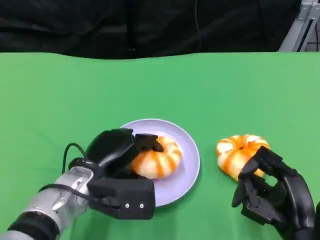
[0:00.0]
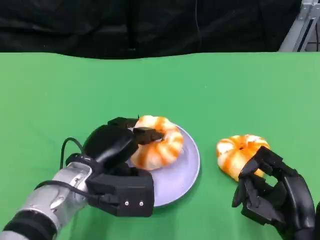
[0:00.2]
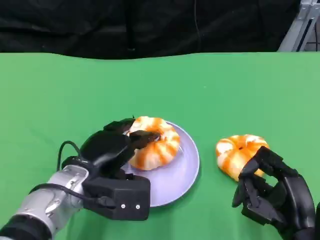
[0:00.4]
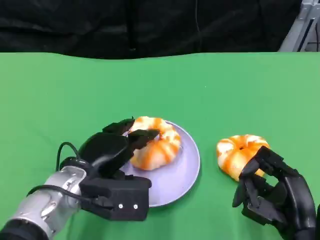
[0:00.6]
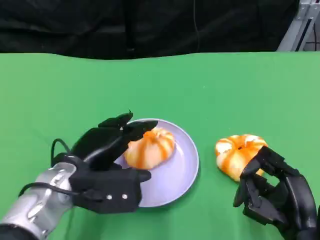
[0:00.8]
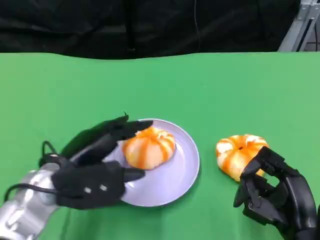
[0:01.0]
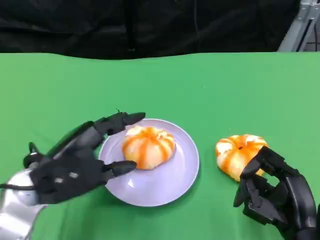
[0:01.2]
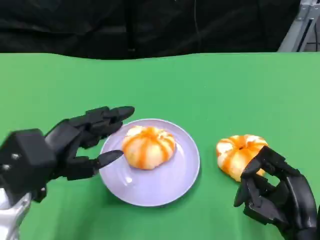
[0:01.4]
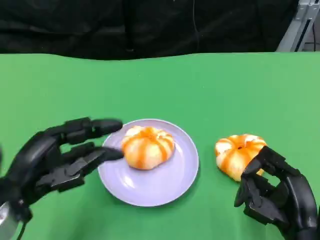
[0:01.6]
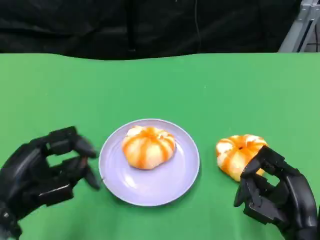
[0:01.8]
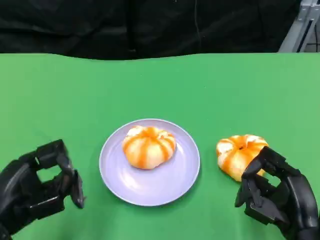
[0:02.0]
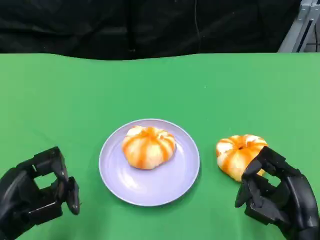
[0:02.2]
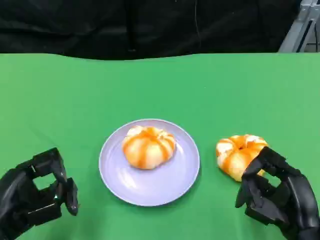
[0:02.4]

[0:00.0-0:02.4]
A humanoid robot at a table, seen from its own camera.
Task of the whole recording: Grasp the bread from the table and place it into the plate.
0:00.0 to 0:01.2: The left hand moves to the left and upward, about 10 cm.
0:01.2 to 0:02.4: The left hand heads backward and to the left, covering roughly 10 cm.

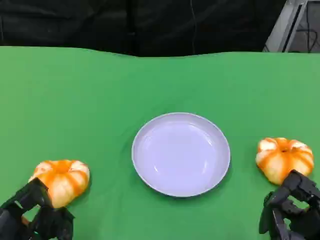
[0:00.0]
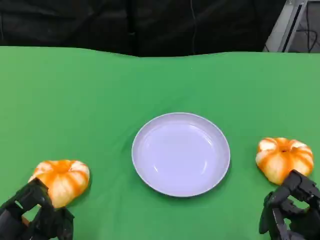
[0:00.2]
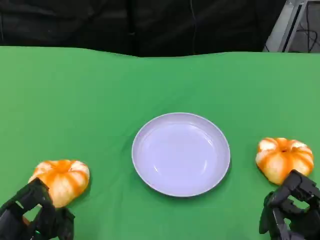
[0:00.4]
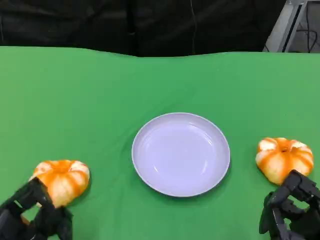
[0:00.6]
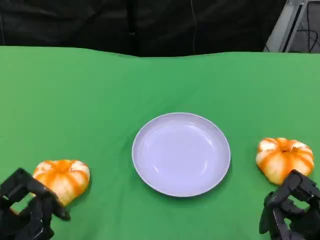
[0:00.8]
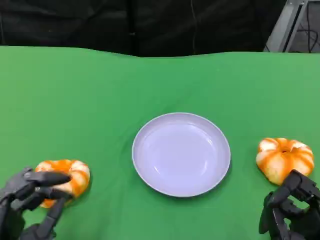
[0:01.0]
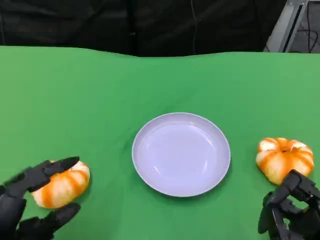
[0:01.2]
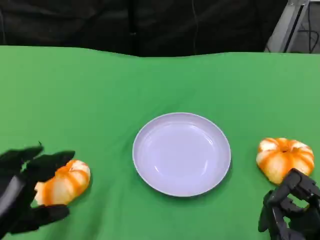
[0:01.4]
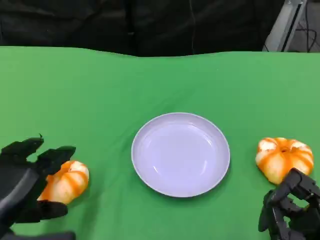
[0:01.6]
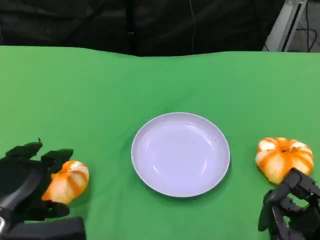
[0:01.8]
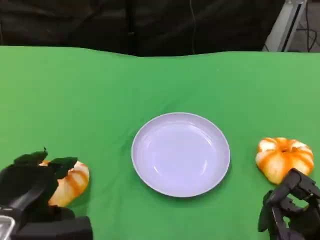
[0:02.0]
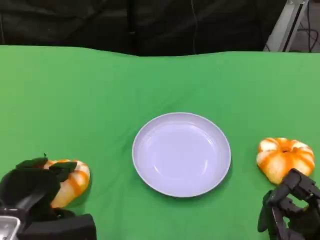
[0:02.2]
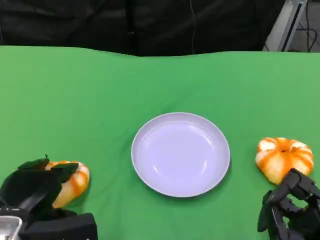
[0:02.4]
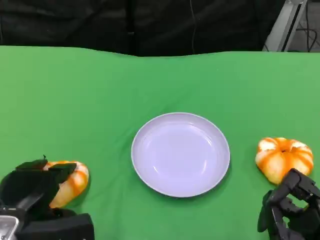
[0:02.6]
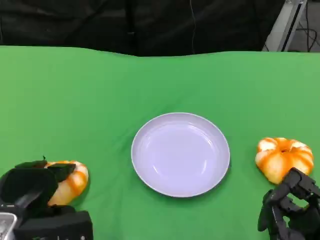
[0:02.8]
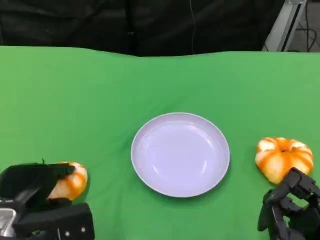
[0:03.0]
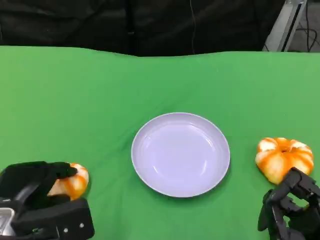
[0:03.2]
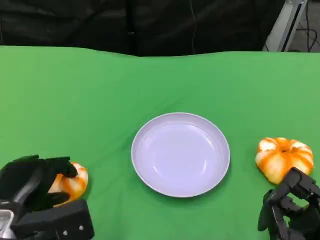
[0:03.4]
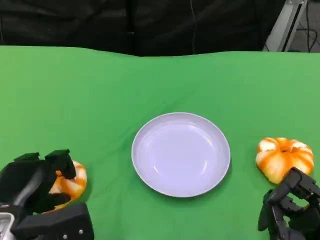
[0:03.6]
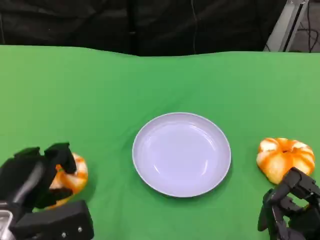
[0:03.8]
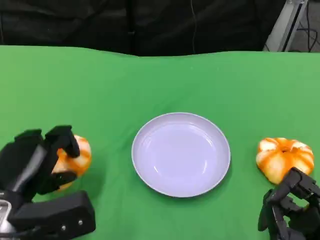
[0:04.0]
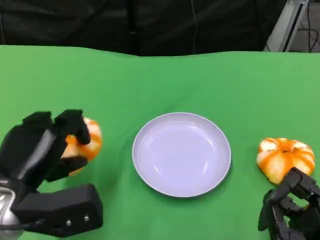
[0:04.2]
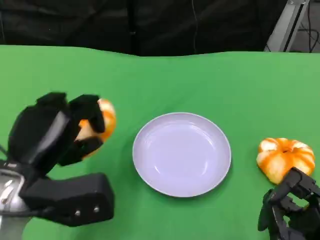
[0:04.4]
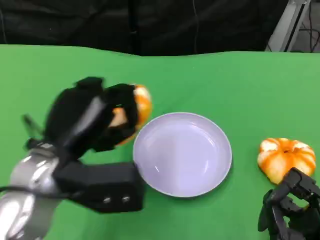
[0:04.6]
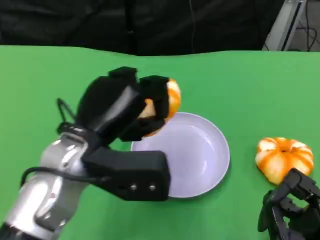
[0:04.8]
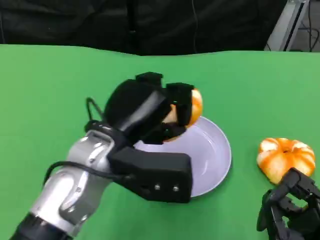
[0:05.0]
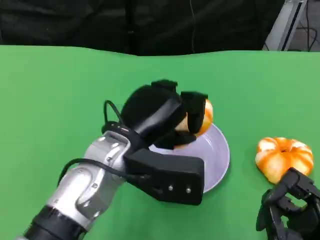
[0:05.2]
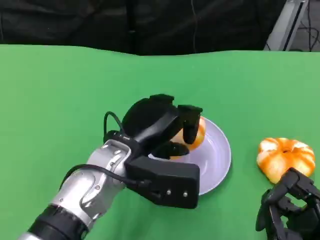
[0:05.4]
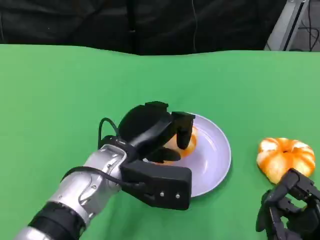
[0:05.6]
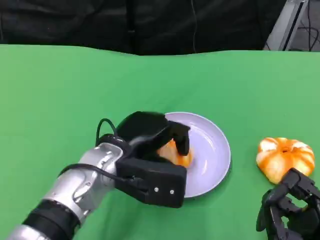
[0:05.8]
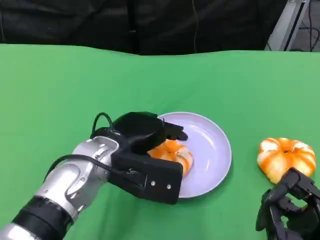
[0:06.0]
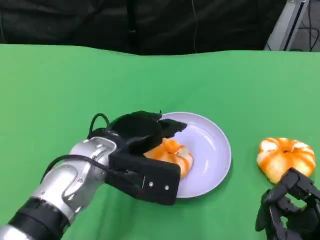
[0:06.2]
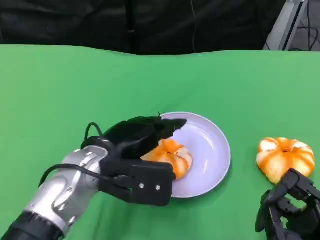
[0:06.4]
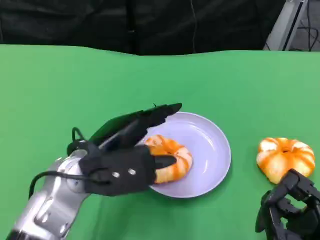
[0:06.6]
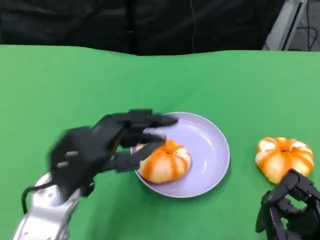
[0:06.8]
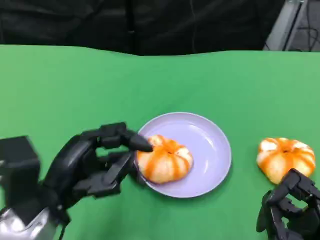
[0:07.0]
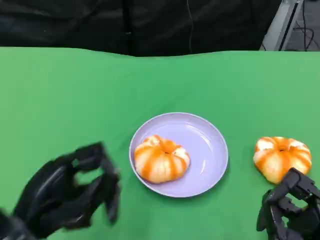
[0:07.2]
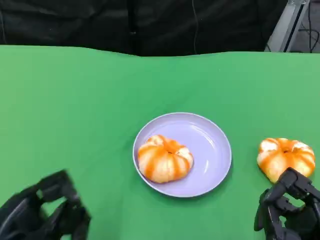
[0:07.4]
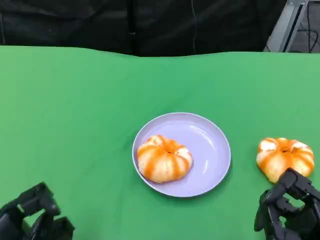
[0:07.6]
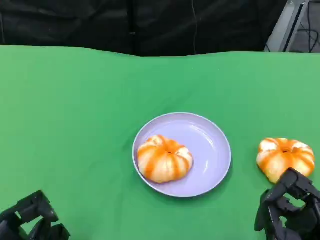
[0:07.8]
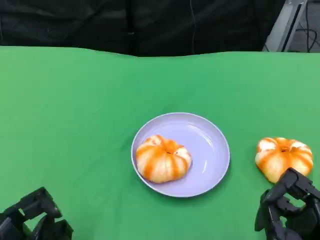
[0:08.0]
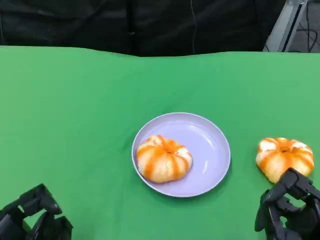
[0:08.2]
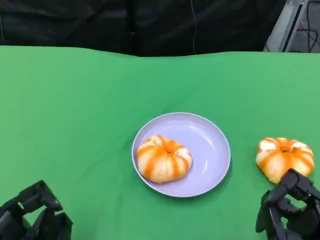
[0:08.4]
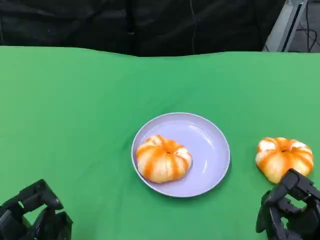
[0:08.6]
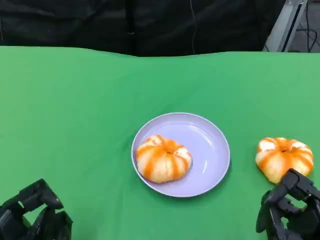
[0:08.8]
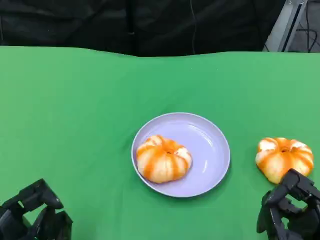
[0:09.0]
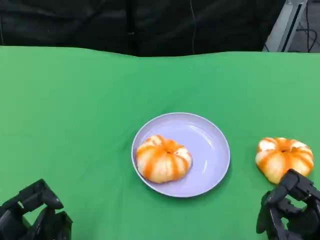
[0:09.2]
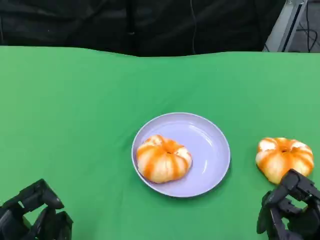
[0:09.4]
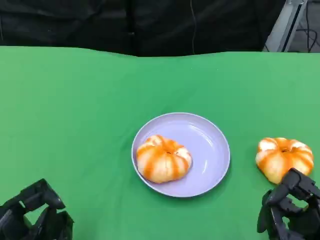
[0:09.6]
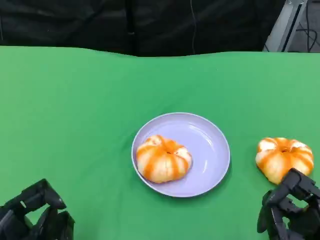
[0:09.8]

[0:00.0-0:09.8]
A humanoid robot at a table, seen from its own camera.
Task of the whole recording: Grasp the bread from the table and place it into the plate.
0:00.0 to 0:01.4: The left hand travels upward by roughly 5 cm.
0:01.4 to 0:02.8: The left hand moves forward, approximately 5 cm.
0:02.8 to 0:04.2: The left hand is displaced upward by some 5 cm.
0:04.2 to 0:05.6: The left hand moves to the right and forward, approximately 15 cm.
0:05.6 to 0:07.0: The left hand is displaced to the left and backward by some 15 cm.
0:07.0 to 0:08.4: The left hand moves to the left, backward and downward, roughly 15 cm.
0:08.4 to 0:09.8: Both hands stay put.

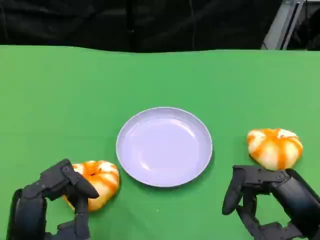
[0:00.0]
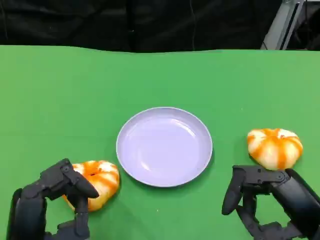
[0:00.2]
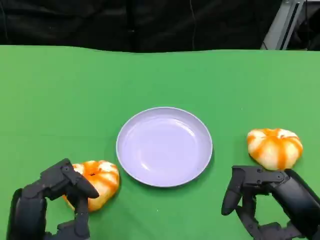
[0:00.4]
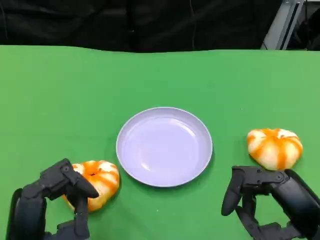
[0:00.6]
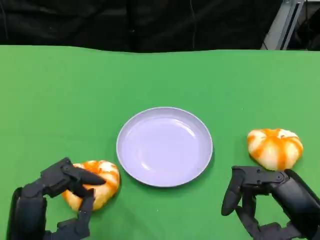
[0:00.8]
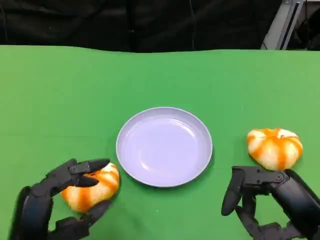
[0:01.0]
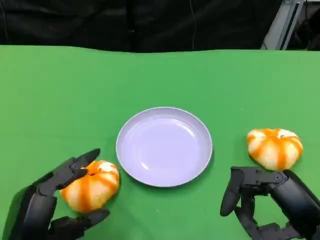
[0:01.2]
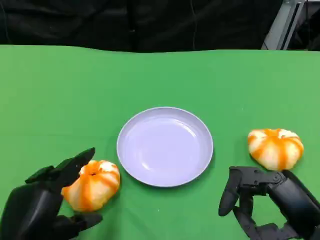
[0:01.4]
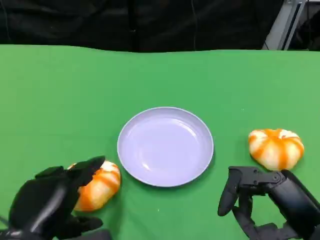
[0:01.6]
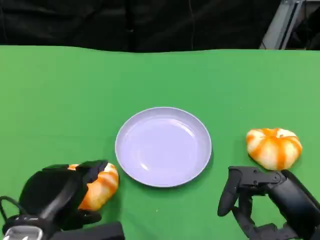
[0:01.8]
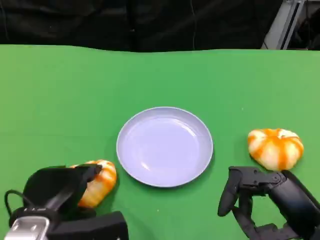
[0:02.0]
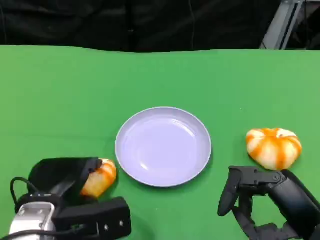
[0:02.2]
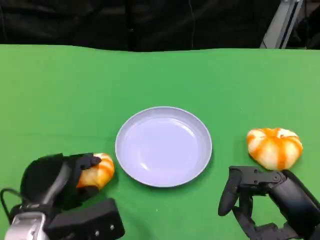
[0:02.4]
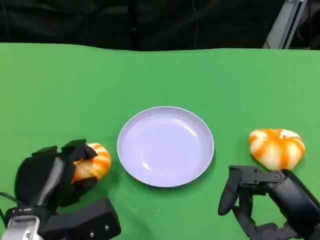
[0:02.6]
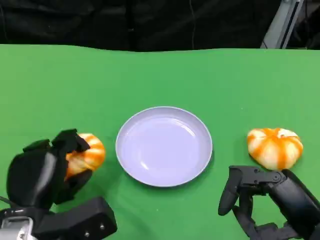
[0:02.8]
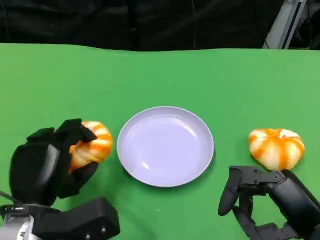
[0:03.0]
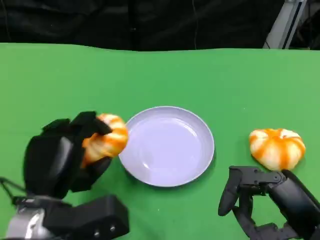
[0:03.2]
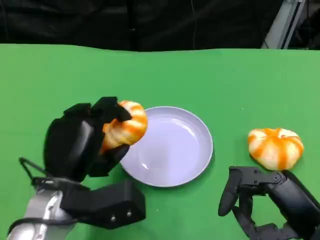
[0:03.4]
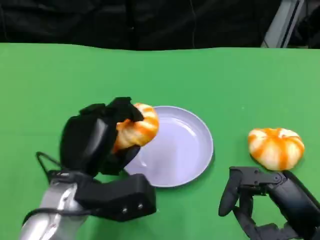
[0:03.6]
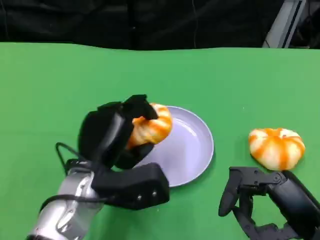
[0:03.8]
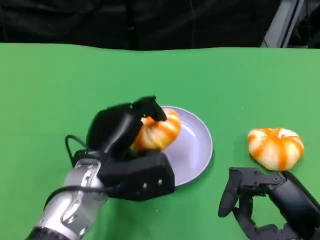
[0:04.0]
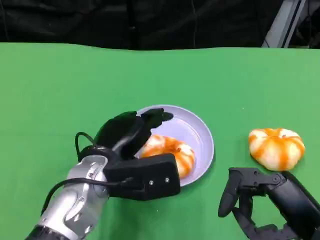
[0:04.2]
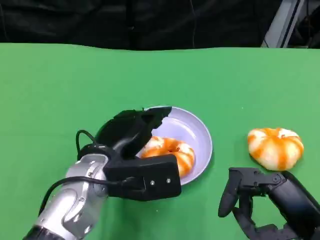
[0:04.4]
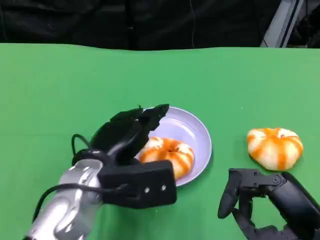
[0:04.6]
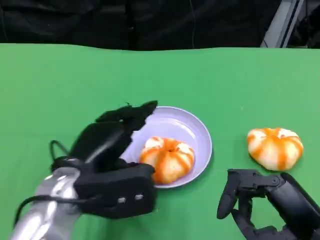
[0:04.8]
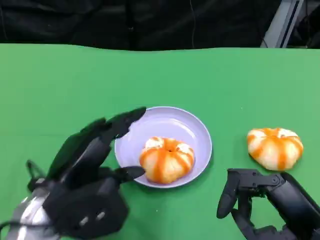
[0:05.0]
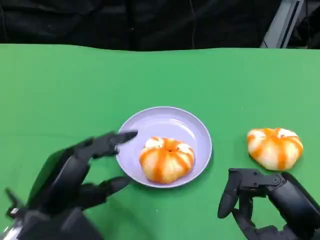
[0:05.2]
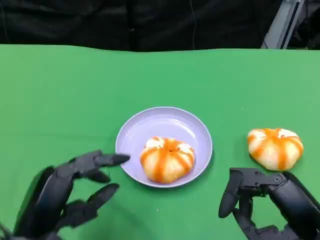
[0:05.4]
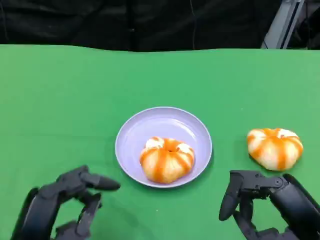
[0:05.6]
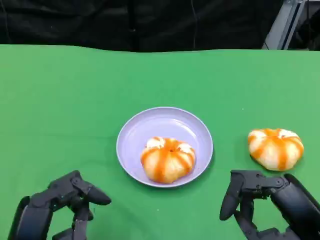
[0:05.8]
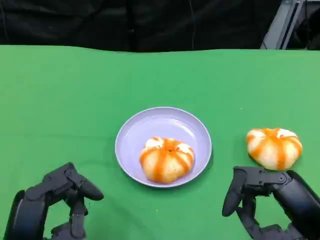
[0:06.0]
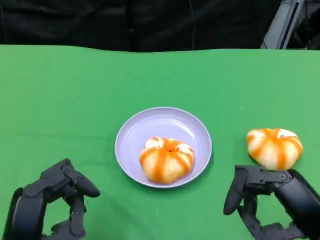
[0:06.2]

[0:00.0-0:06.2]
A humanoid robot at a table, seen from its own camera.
Task of the whole recording: Grasp the bread from the table and place it into the plate.
0:01.6 to 0:03.2: The left hand shifts roughly 5 cm forward.
0:03.2 to 0:04.6: The left hand shifts roughly 5 cm to the right.
0:04.6 to 0:06.2: The left hand heads backward and to the left, covering about 15 cm.

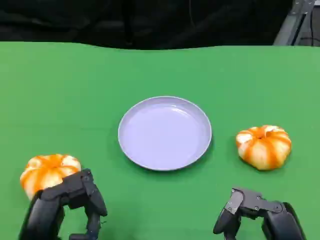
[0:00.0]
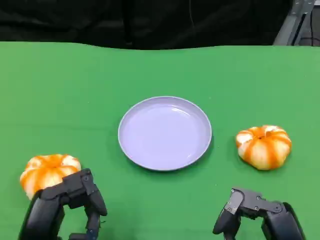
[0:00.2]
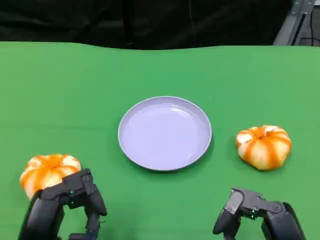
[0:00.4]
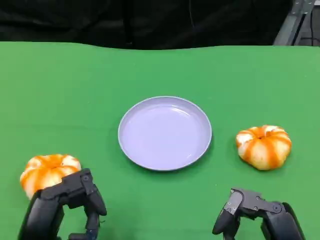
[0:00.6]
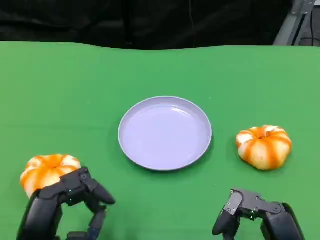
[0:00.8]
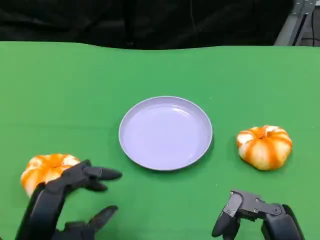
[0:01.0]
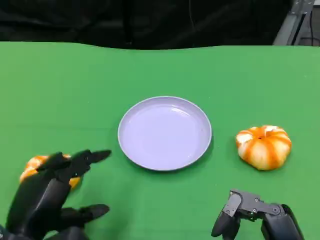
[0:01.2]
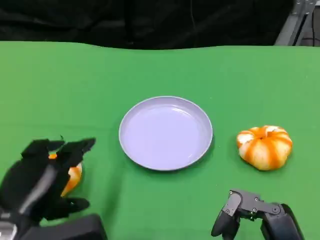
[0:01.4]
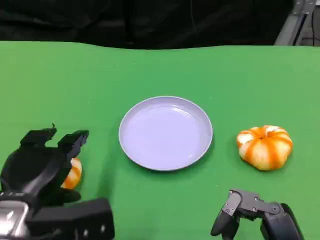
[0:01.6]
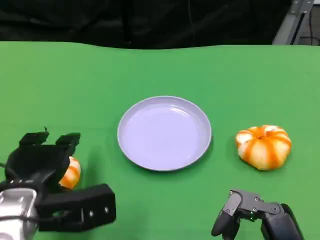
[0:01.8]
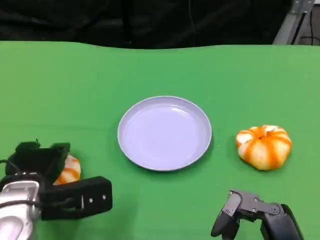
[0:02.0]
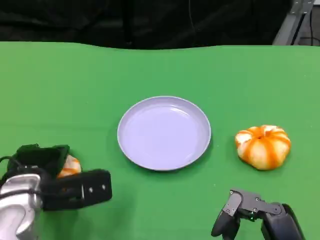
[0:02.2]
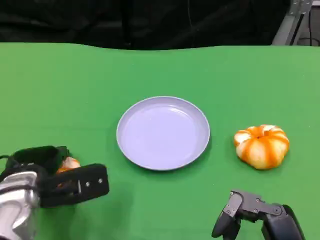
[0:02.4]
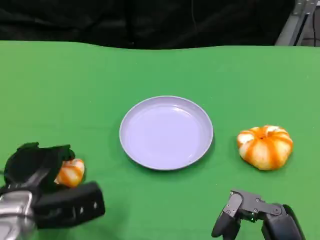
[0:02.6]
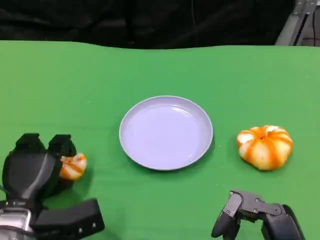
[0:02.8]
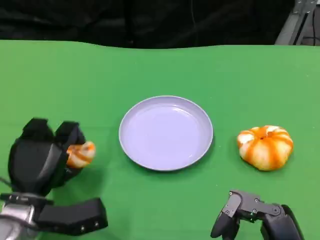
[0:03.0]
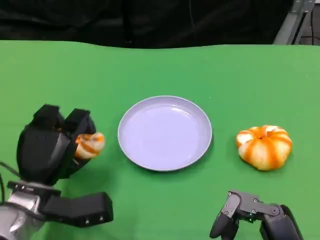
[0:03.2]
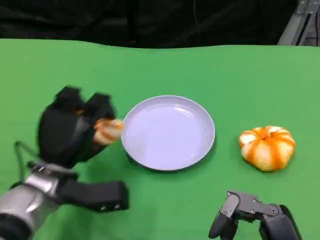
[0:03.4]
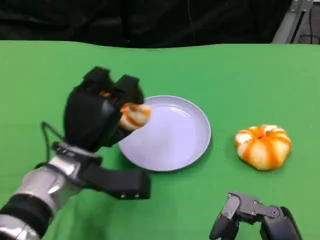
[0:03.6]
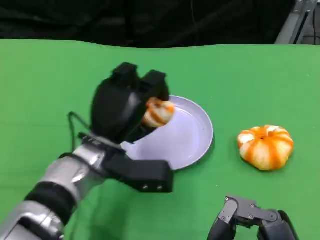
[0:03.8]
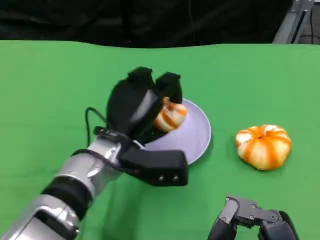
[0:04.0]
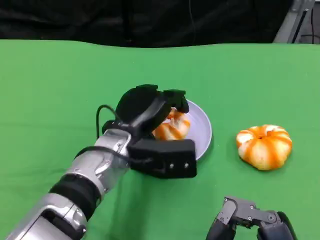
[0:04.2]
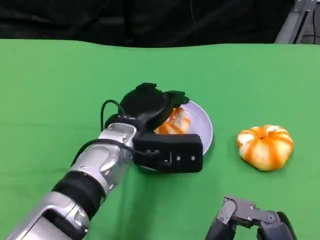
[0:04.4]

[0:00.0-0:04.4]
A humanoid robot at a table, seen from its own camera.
Task of the whole recording: Grasp the bread from the table and place it into the plate.
0:00.0 to 0:01.4: The left hand changes place by some 5 cm.
0:01.4 to 0:03.0: The left hand is displaced downward and forward by some 10 cm.
0:03.0 to 0:04.4: The left hand heads to the right, upward and forward, covering approximately 20 cm.
